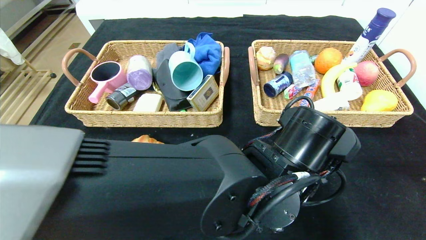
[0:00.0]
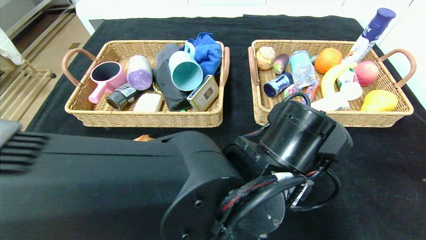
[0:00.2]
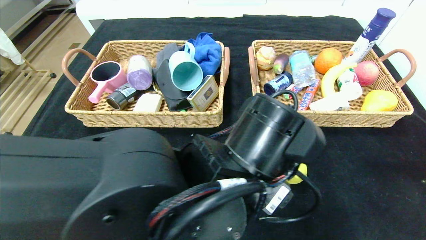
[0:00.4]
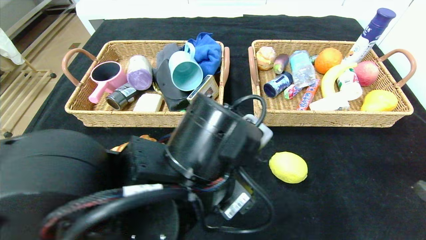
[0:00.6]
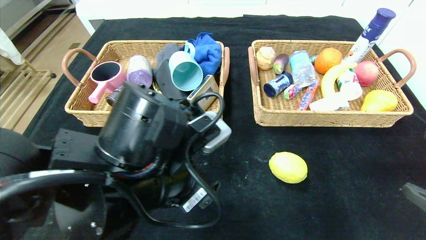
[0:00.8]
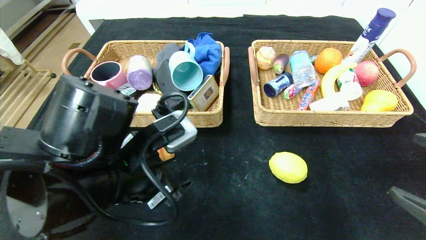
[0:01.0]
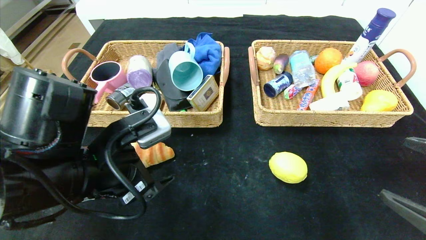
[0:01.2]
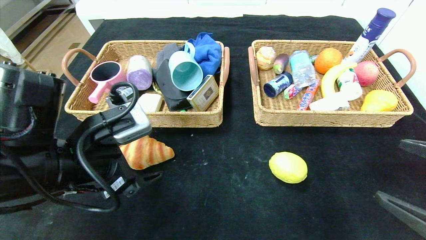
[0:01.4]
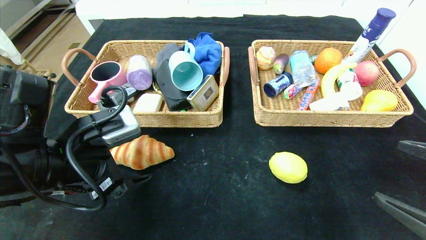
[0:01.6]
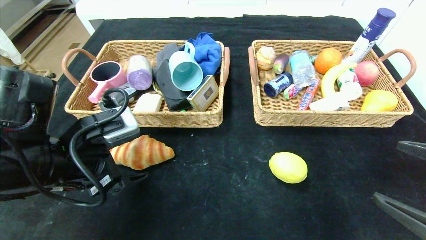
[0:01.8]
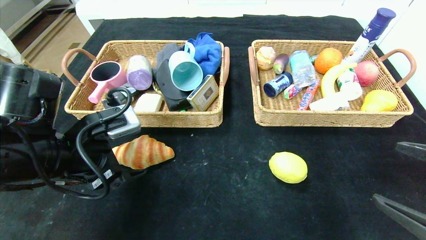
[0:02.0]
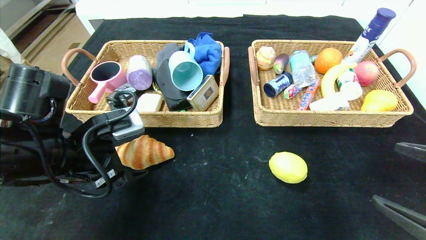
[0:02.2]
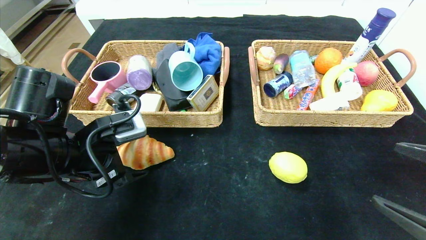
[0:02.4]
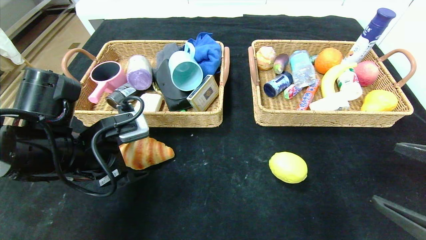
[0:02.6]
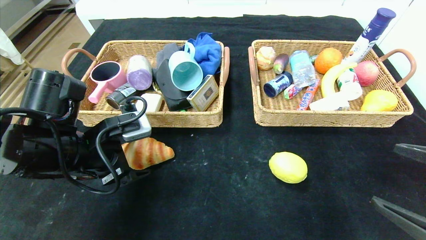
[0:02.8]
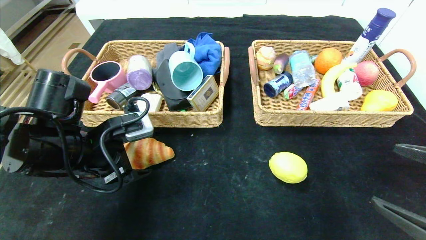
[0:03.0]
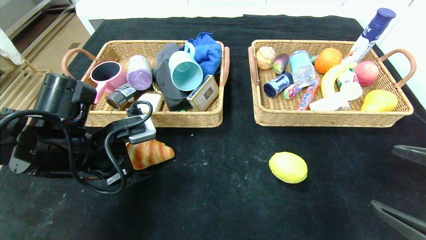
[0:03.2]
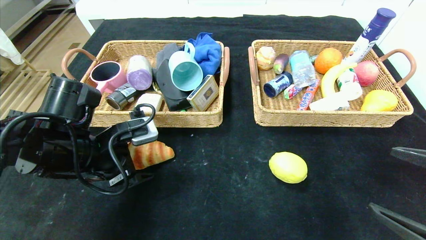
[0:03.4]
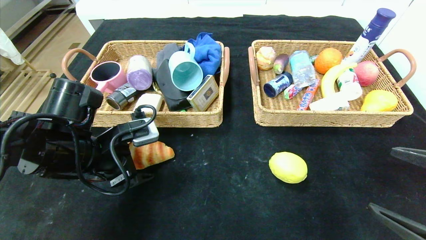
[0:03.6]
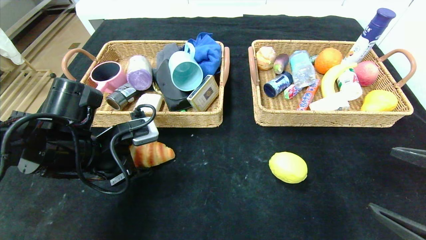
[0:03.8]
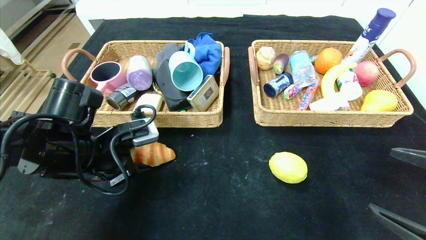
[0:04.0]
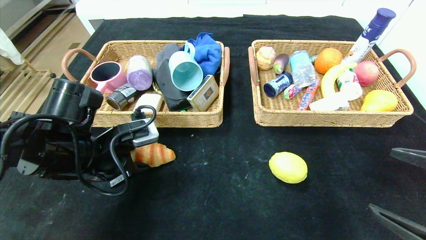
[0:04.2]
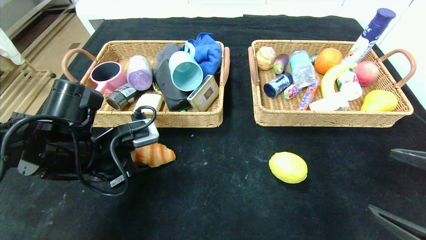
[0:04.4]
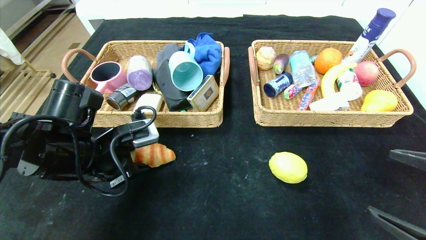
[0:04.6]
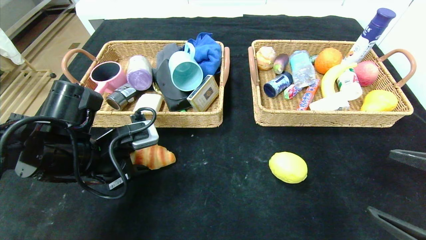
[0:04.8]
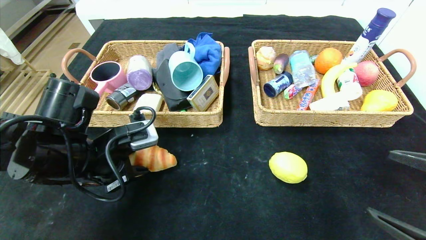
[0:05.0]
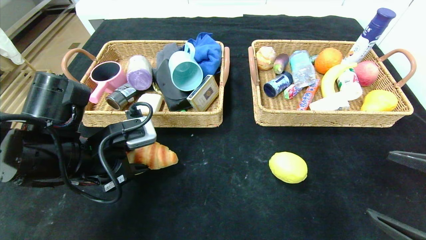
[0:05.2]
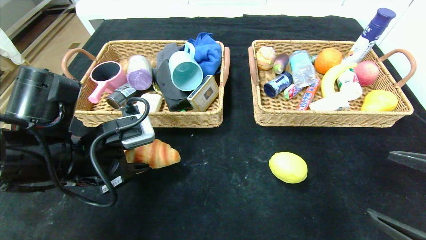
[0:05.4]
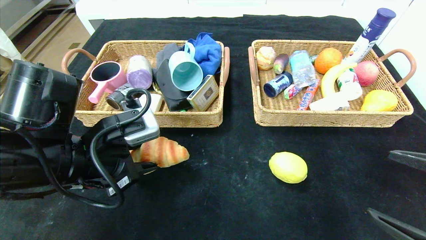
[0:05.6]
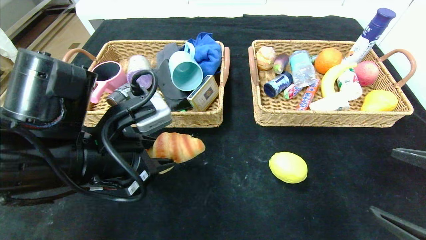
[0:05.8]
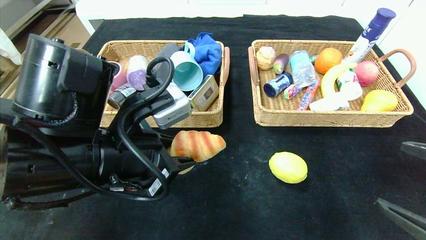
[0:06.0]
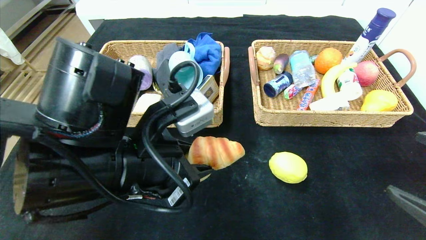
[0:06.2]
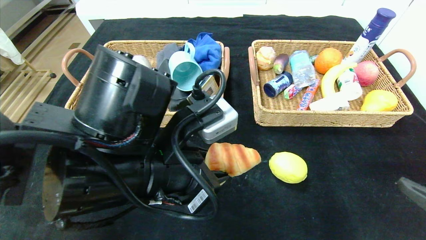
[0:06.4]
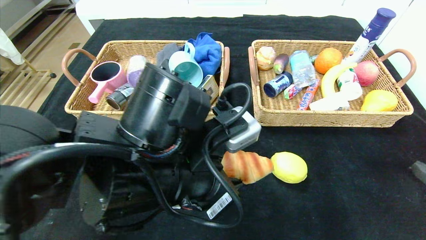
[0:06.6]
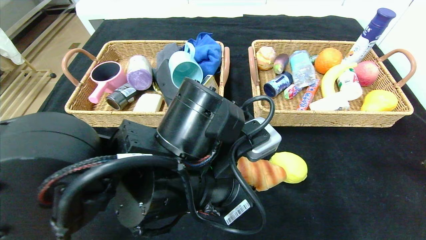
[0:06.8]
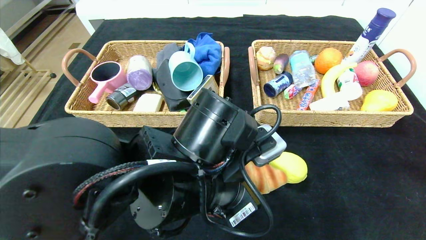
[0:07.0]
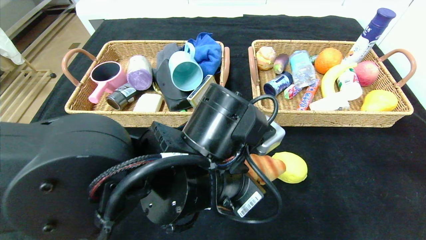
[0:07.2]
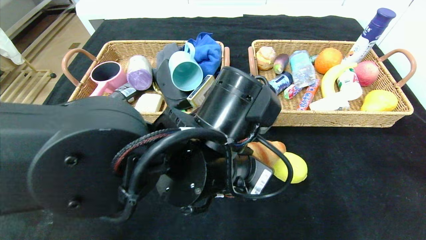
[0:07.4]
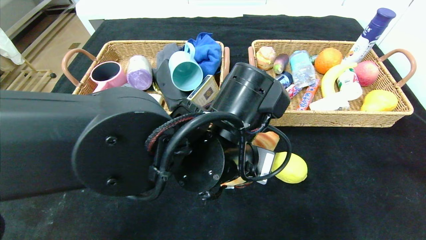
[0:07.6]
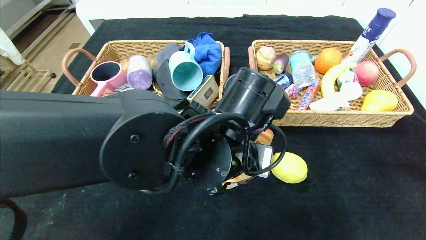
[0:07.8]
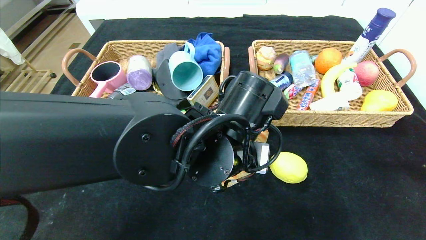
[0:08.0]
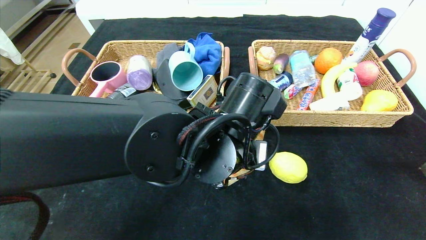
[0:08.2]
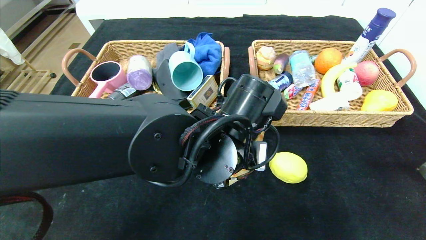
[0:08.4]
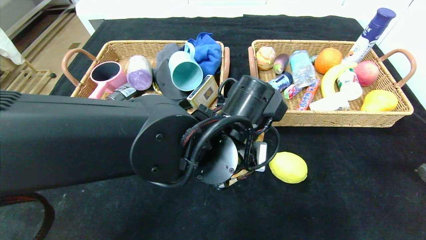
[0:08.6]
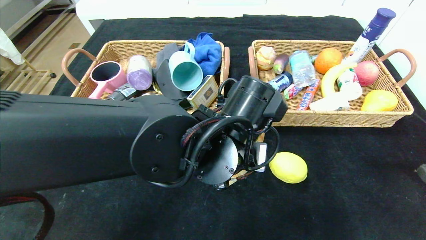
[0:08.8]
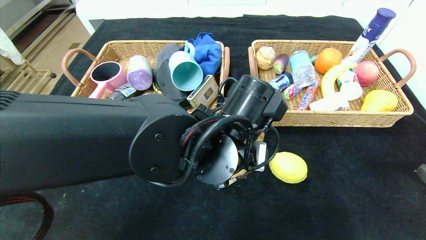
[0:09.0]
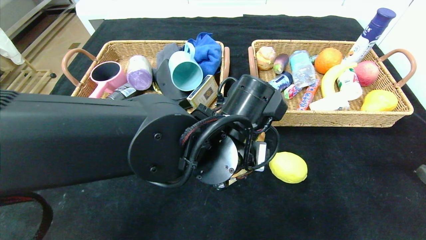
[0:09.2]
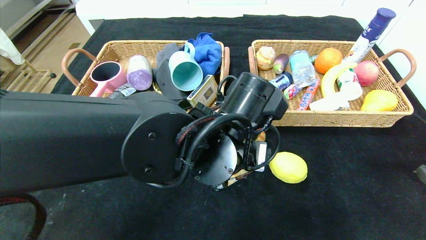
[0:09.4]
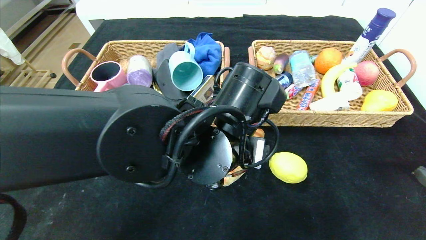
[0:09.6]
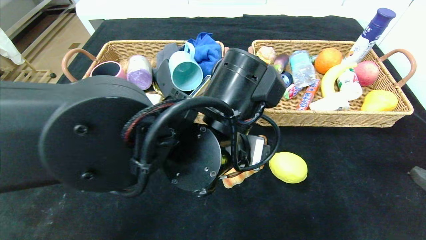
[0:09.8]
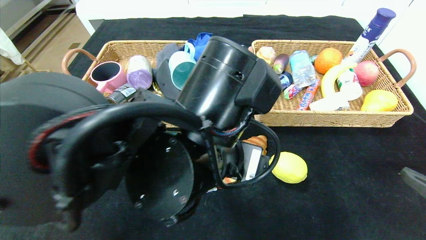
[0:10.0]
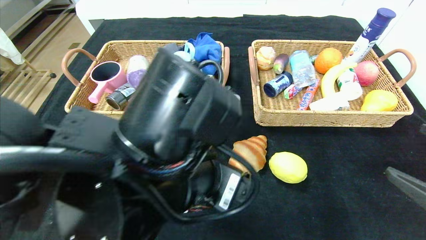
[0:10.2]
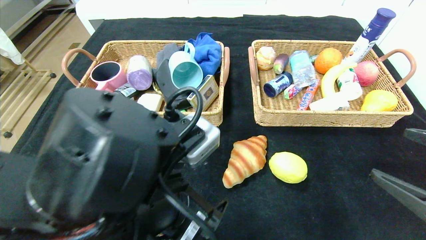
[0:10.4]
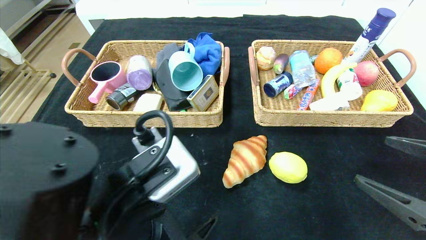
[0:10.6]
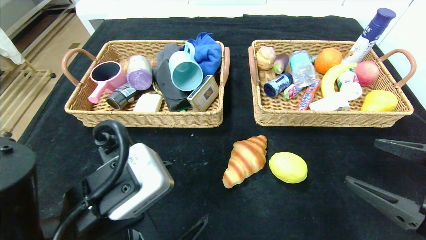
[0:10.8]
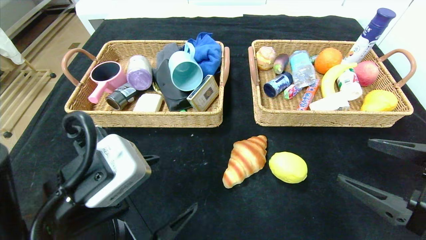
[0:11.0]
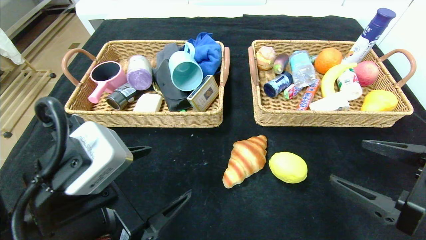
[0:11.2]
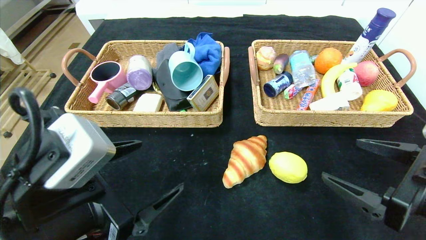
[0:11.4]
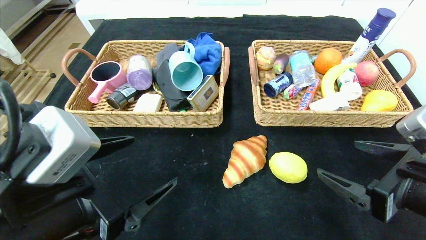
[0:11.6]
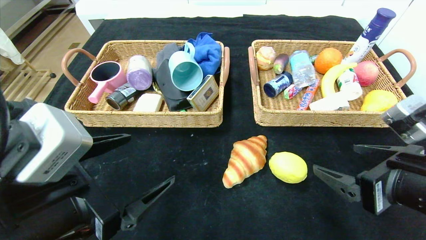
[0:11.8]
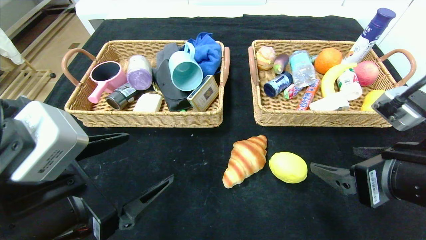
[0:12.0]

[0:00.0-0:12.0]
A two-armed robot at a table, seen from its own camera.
Step, 0:00.2 to 0:09.6: Place the croissant in the center of the table.
0:00.0 to 0:01.6: The left gripper travels to the left by roughly 30 cm.
0:01.6 to 0:03.0: The left gripper shifts by roughly 5 cm.
0:03.0 to 0:04.4: The left gripper closes.
0:04.4 to 0:06.0: The left gripper travels to the right, backward and upward by about 10 cm.
0:06.0 to 0:07.6: The left gripper is displaced to the right by about 15 cm.
0:07.6 to 0:09.0: The left gripper opens up.
0:09.0 to 0:10.4: The left gripper shifts roughly 15 cm backward and to the left.
0:10.4 to 0:12.0: Both grippers travel together to the left, some 10 cm.

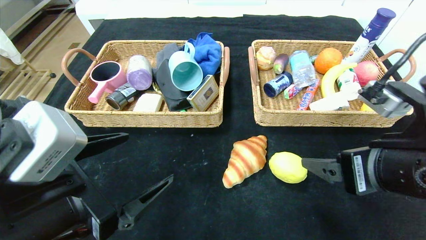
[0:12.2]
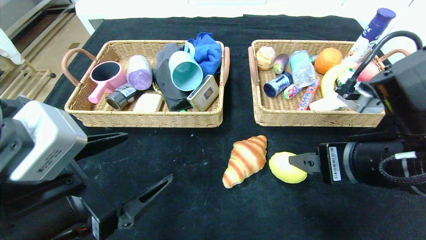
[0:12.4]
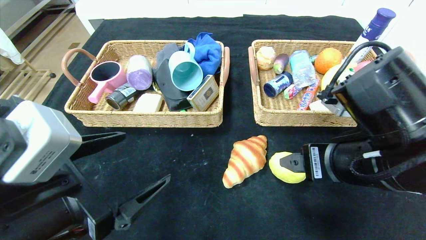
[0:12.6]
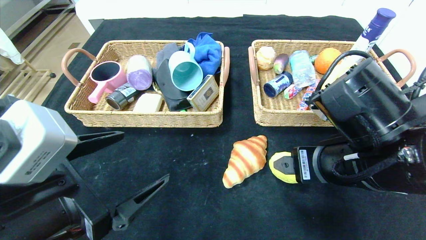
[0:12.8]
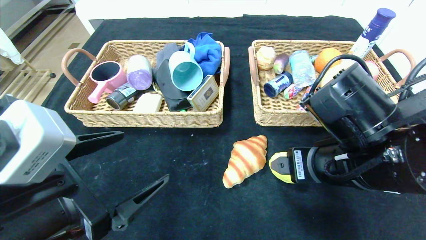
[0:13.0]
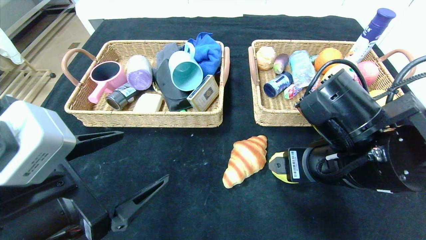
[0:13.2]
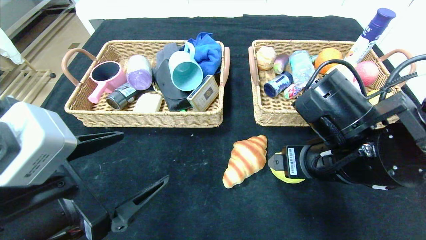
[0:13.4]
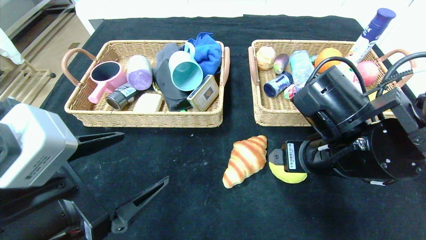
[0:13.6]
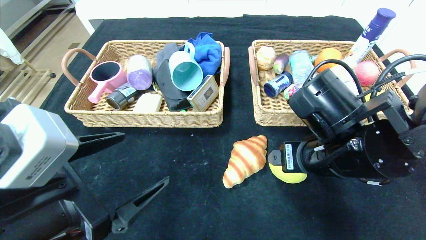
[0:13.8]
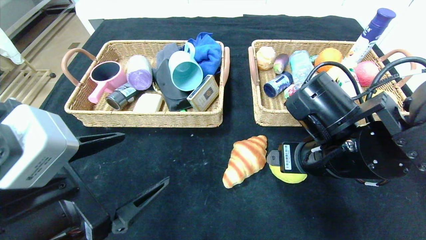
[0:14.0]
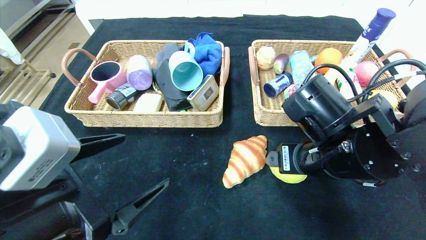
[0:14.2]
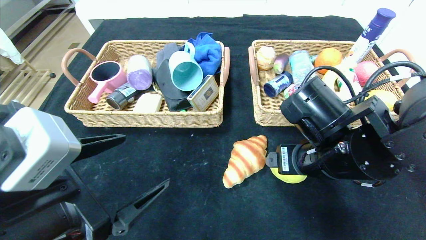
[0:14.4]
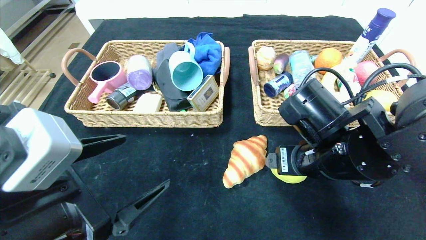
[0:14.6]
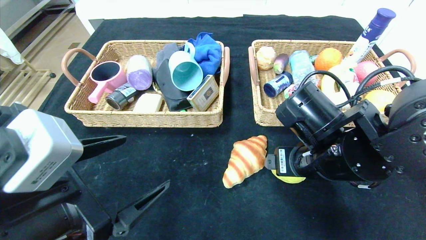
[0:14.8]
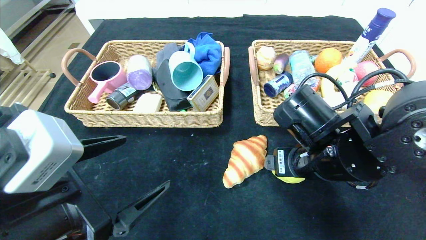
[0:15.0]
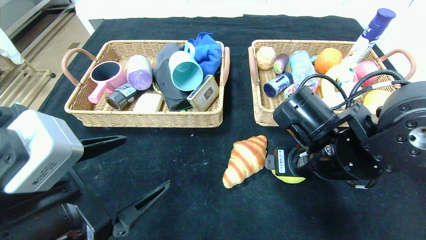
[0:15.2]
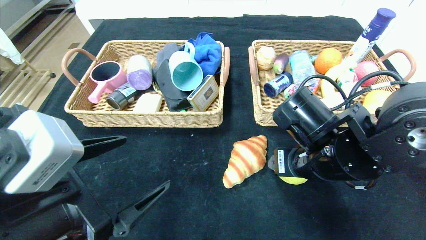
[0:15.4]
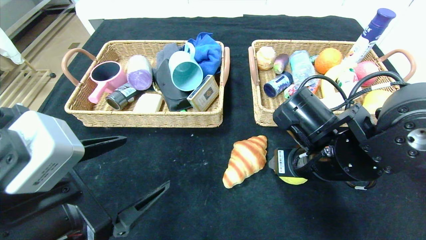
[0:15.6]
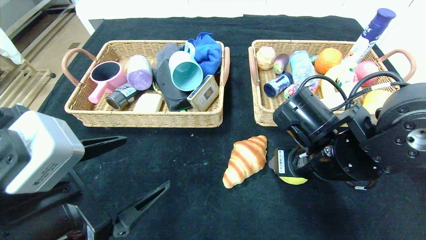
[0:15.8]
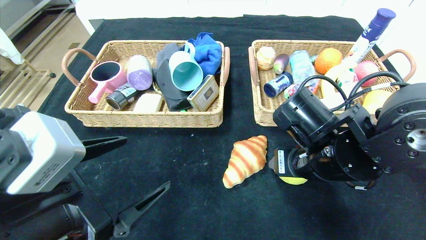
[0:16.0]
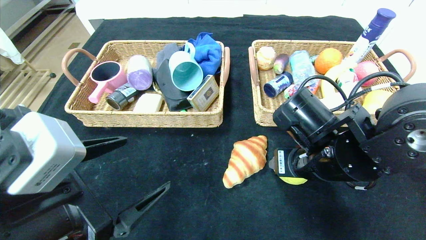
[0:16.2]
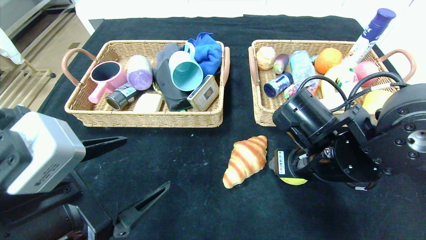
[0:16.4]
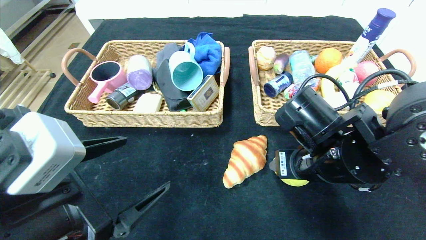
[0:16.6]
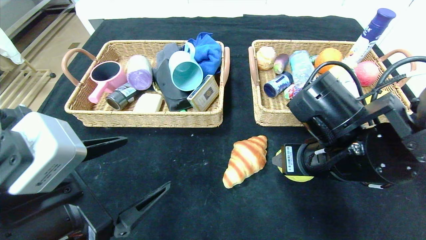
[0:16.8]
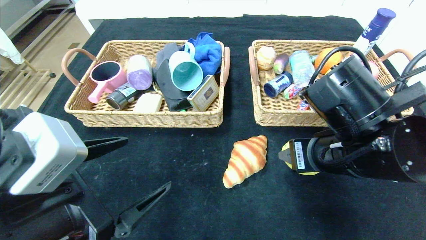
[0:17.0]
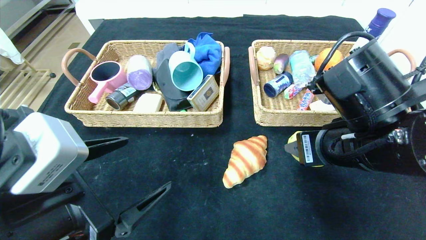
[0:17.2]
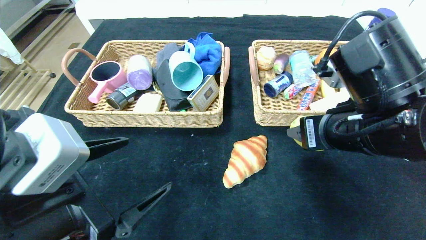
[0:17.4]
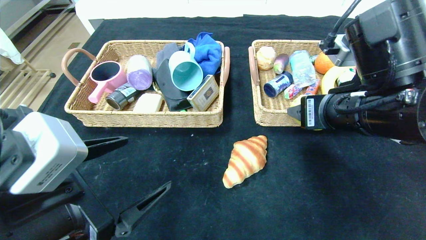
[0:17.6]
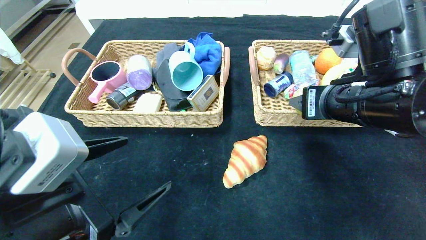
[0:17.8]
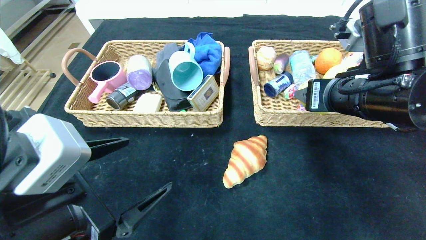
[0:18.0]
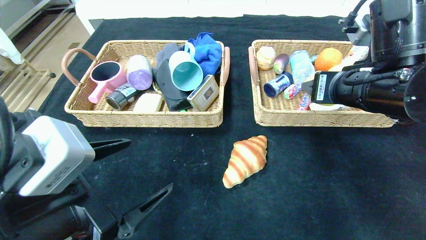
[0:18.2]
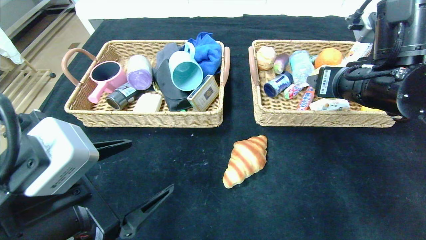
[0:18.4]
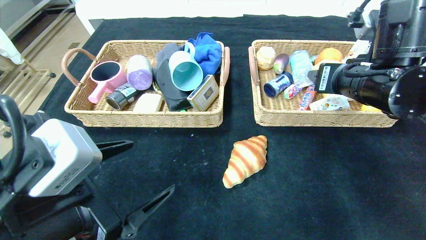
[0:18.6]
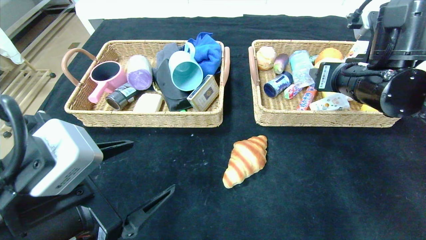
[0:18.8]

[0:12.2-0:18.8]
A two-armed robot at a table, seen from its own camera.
0:12.2 to 0:13.8: The right gripper travels forward and to the left by about 10 cm.
0:13.8 to 0:15.4: The right gripper closes its fingers.
0:15.4 to 0:17.2: The right gripper heads upward, covering roughly 5 cm.
0:17.2 to 0:18.8: The right gripper shifts some 10 cm forward and to the right.
